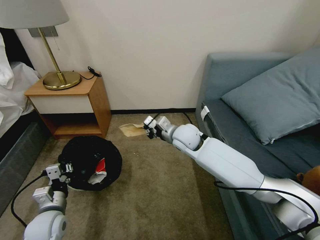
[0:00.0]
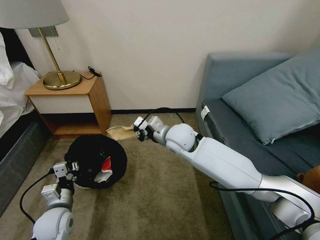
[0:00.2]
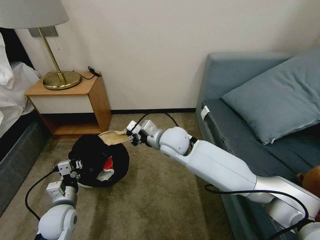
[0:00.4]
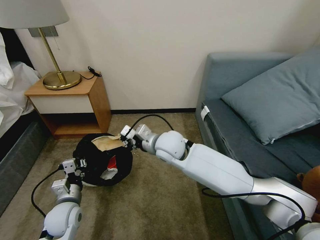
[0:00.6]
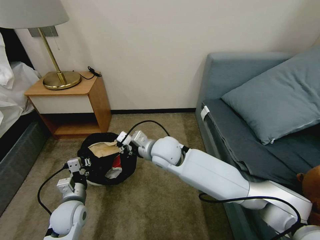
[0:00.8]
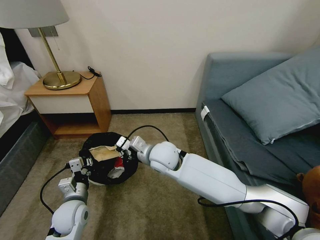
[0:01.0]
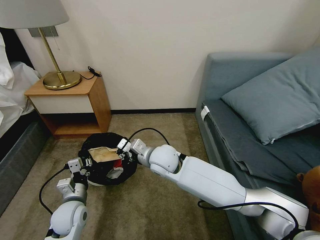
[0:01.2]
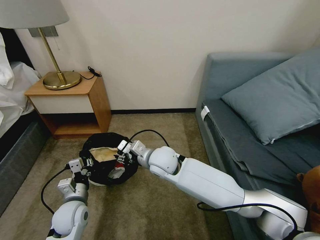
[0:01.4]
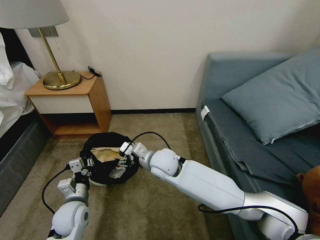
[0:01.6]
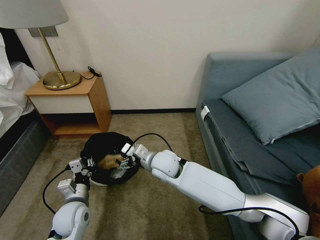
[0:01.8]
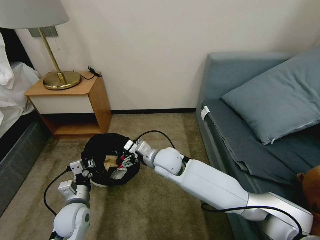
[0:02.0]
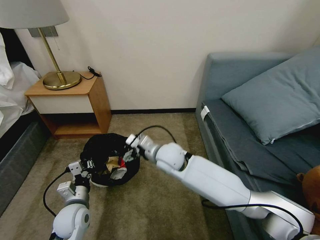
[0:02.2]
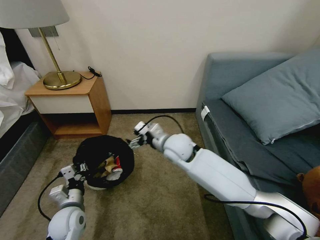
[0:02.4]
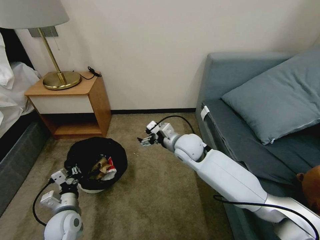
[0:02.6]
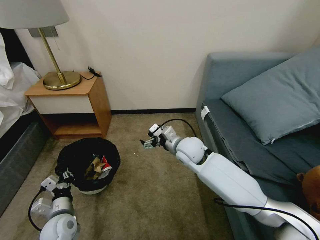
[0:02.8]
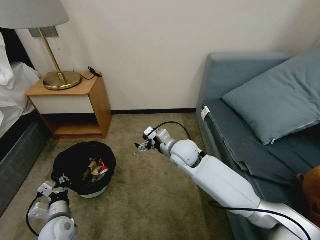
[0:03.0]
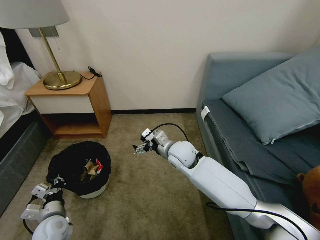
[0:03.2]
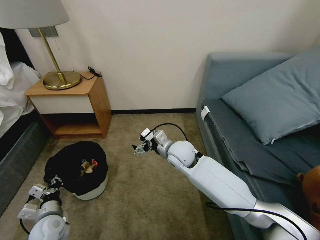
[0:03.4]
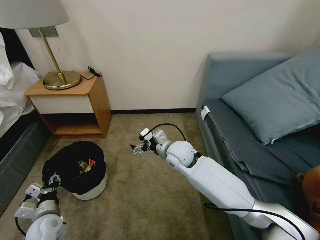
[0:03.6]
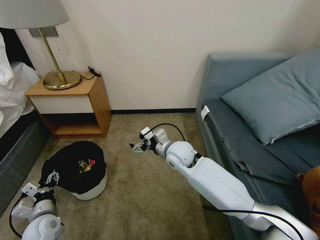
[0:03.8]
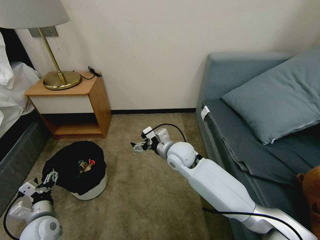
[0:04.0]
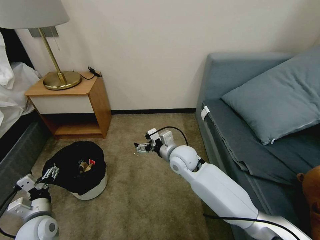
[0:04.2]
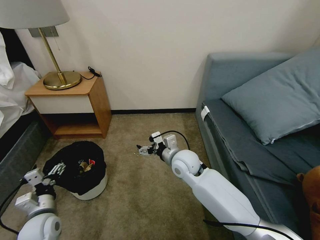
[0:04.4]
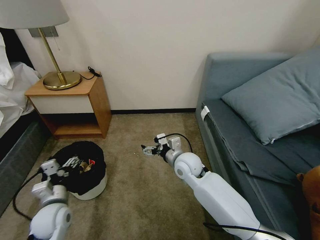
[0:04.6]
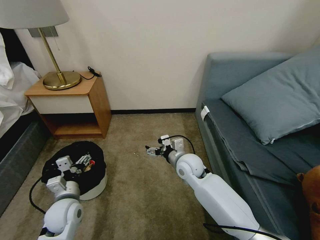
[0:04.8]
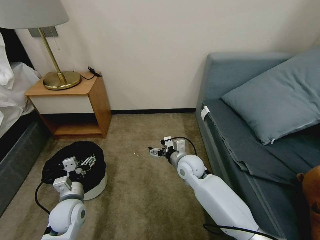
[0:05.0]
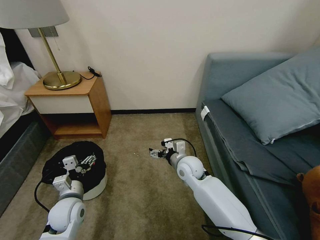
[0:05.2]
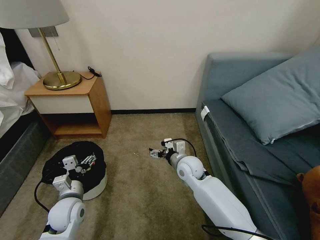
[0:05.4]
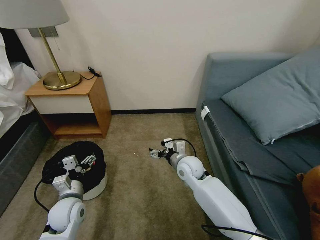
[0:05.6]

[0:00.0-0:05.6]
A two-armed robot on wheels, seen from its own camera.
Task of the whole recording: Pick up the trash bin, then pick up the garbage on the floor and place it into the trash bin.
0:00.0 to 0:01.4: The left gripper goes roughly 5 cm to the right. The right gripper moves to the left and backward, some 10 cm, and opens up.
0:01.4 to 0:02.8: The left gripper shifts by roughly 5 cm, while the right gripper travels to the right by roughly 10 cm, and opens.
0:02.8 to 0:04.2: The left gripper moves to the left, approximately 5 cm, and opens up.
0:04.2 to 0:05.6: The left gripper heads to the right and forward, covering roughly 10 cm; the right gripper goes some 5 cm downward.
